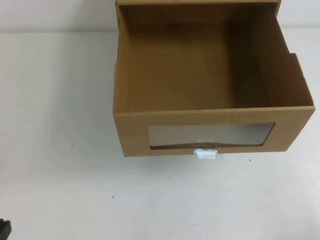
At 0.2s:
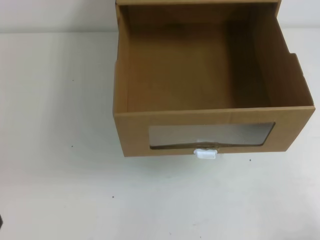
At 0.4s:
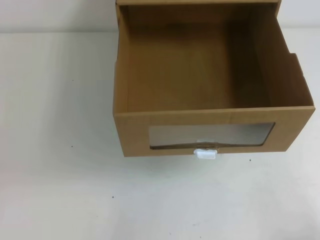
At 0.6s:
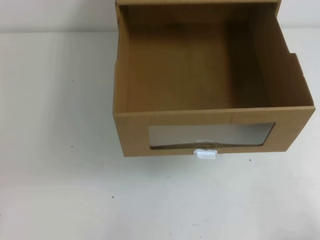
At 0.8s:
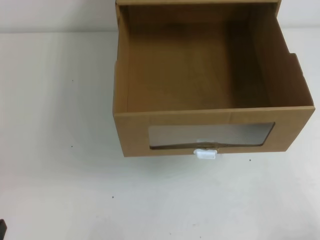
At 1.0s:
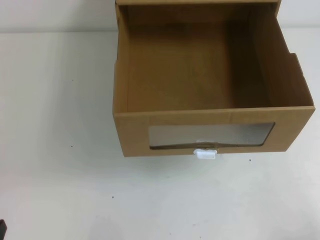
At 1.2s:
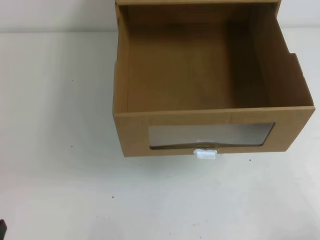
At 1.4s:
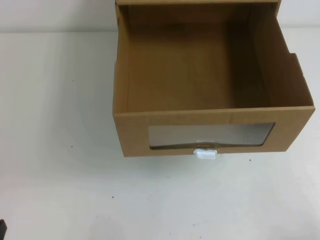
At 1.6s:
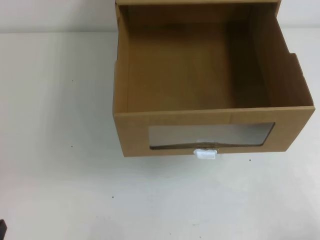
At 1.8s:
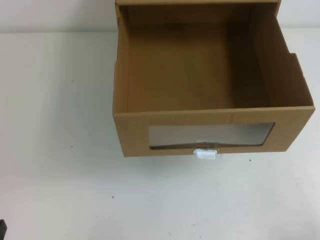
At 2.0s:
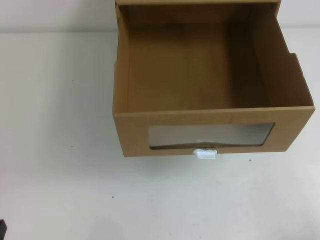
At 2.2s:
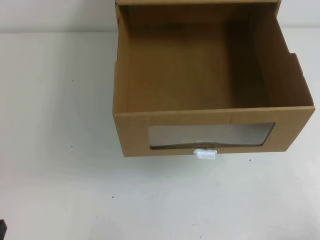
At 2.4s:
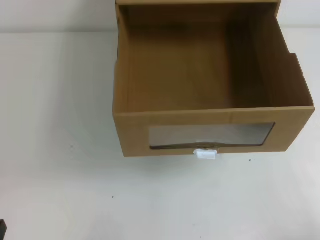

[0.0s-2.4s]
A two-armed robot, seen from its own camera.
Task of the whole recording: open the shoebox on the table.
1.2s to 2.4s: The two grippers keep their place.

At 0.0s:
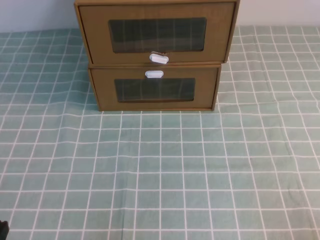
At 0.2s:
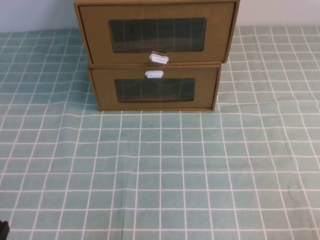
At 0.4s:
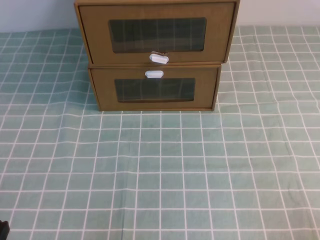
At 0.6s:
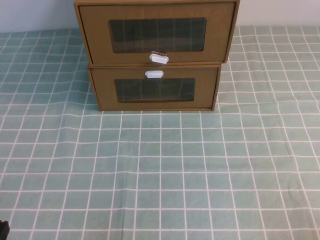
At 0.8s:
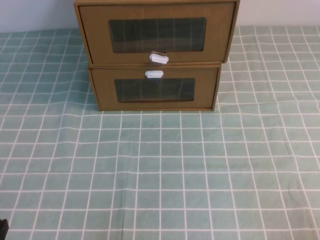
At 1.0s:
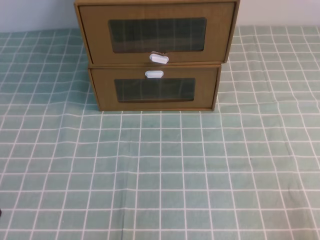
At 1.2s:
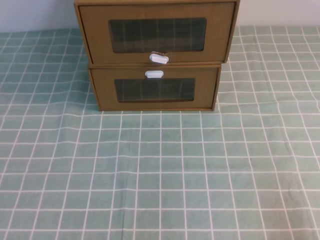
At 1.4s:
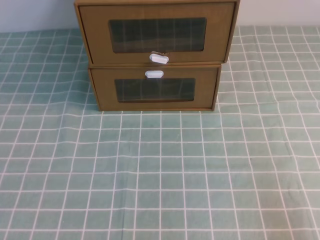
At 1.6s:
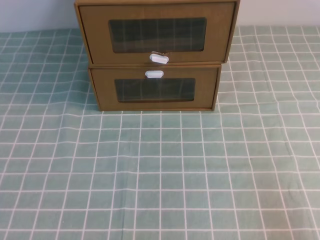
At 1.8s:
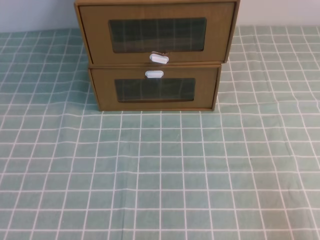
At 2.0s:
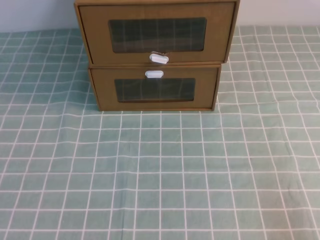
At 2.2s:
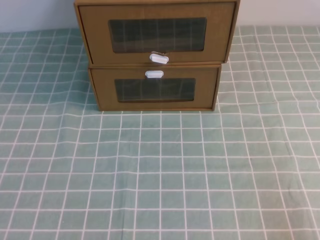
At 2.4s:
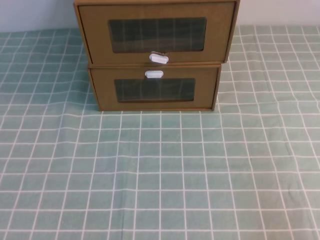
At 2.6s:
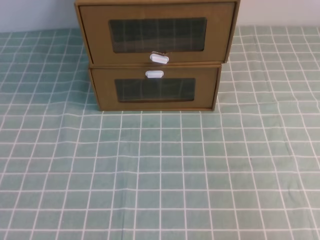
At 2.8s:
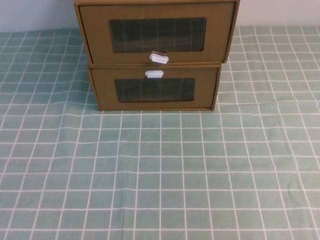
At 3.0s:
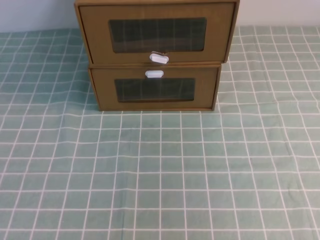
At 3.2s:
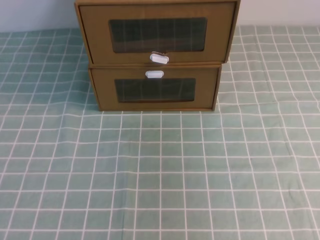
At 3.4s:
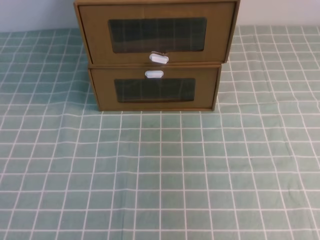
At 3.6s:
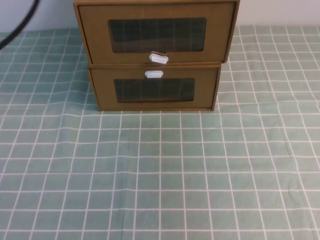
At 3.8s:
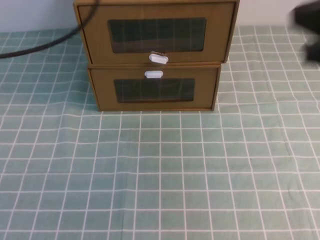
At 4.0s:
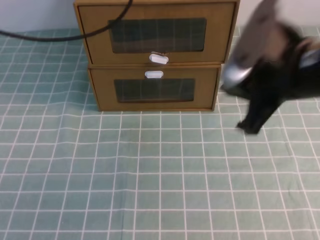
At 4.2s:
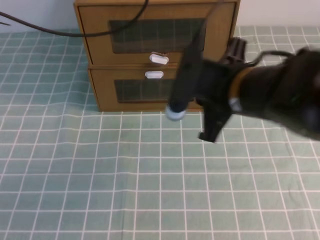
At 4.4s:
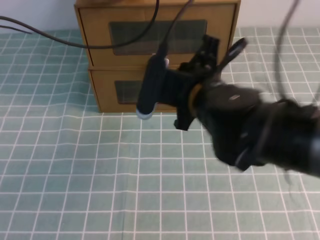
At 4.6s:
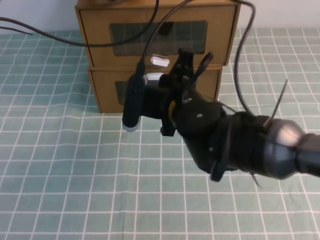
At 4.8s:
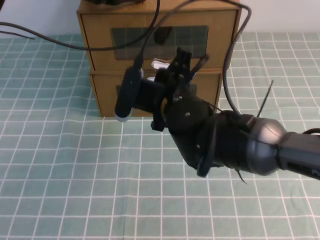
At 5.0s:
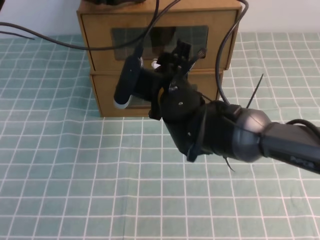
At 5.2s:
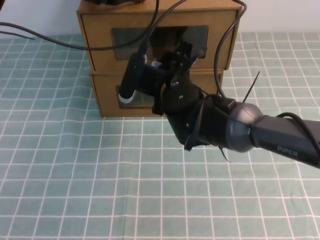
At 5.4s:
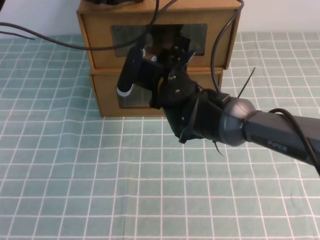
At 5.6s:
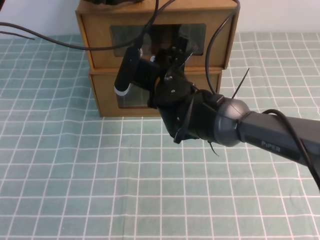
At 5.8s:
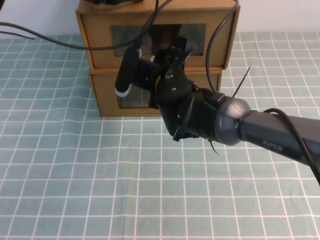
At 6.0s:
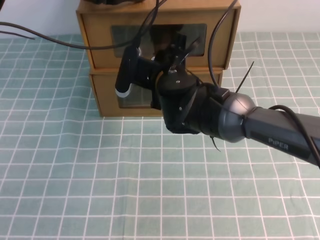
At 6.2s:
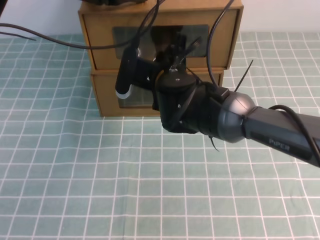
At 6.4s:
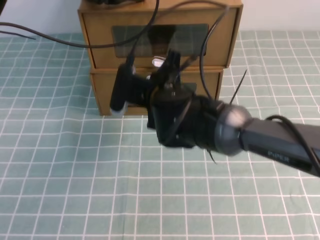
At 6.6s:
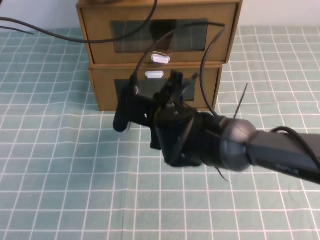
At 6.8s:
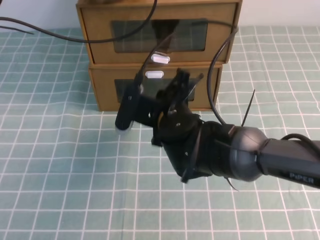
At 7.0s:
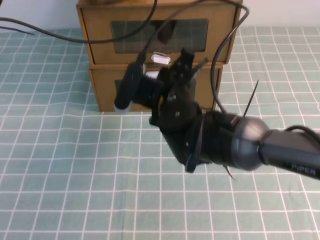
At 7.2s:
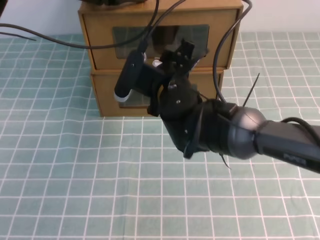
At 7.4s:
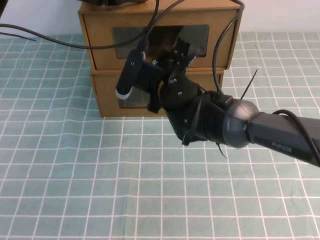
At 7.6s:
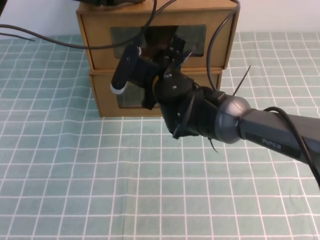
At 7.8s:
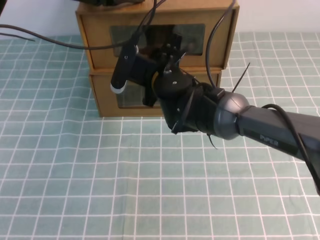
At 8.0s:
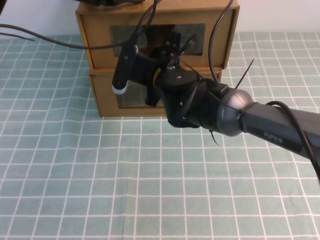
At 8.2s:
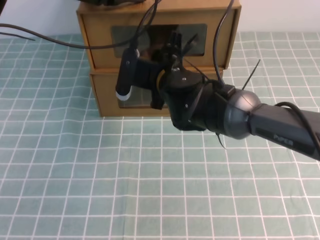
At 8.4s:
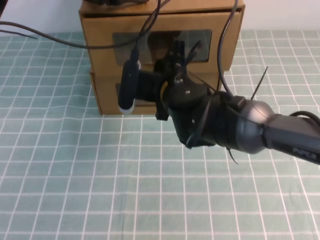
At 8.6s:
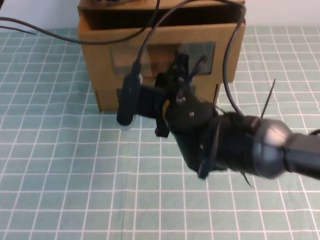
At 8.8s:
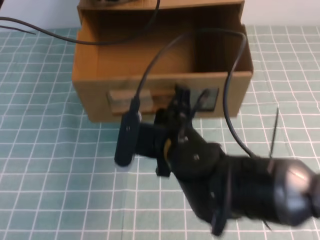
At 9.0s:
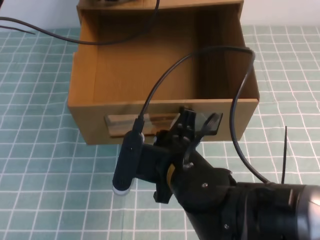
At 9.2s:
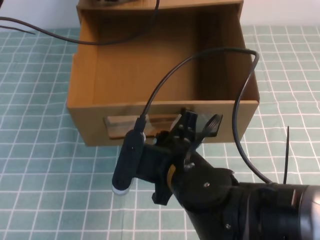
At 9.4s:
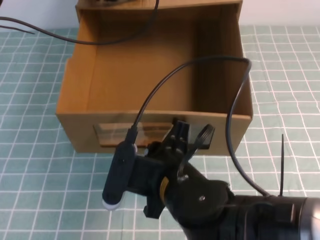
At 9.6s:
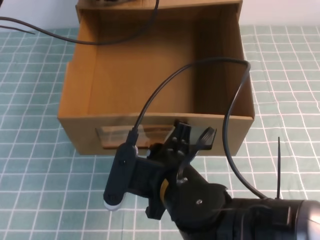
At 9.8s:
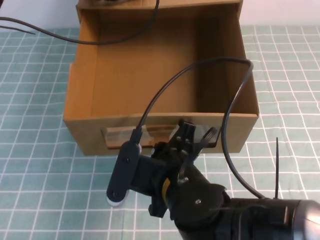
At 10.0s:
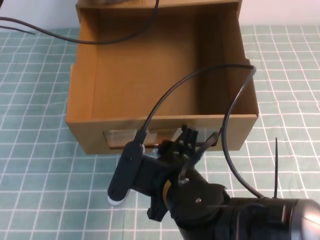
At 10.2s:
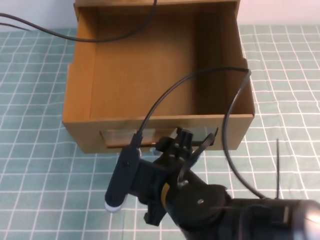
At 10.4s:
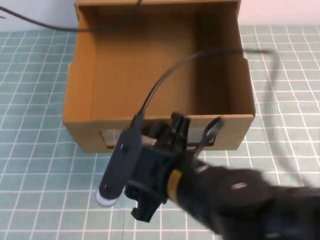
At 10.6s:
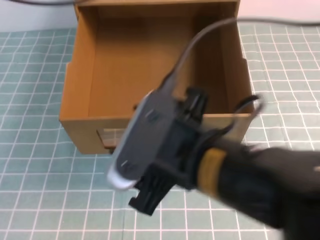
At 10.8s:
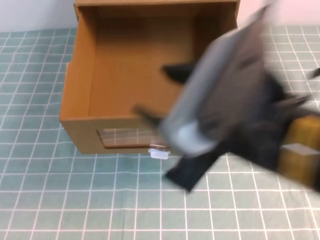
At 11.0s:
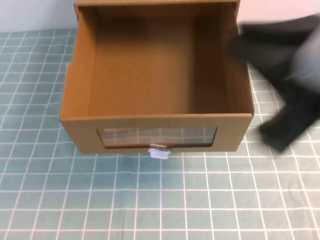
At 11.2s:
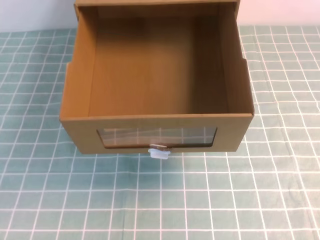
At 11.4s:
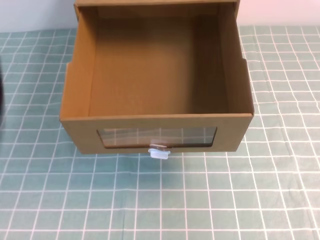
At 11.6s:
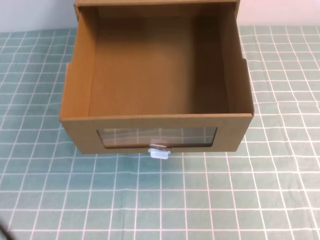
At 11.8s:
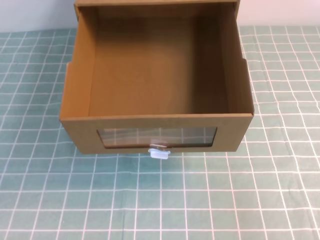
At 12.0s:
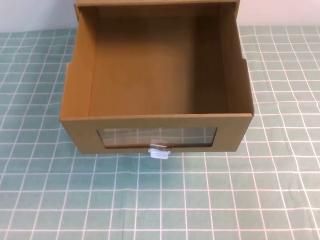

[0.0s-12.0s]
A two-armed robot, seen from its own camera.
Task of the whole recording: open the shoebox on the cyan tablecloth.
1.6s to 3.0s: The right gripper shifts about 25 cm upward.
3.0s to 4.4s: The left gripper moves forward, roughly 40 cm; the right gripper is displaced forward, to the left and downward by approximately 40 cm.
4.4s to 6.0s: The right gripper moves forward and to the left, roughly 10 cm.
7.6s to 9.0s: The right gripper moves backward, approximately 15 cm.
9.0s to 10.4s: The left gripper goes approximately 5 cm upward; the right gripper ends up approximately 5 cm from where it was, and opens its fingers.
10.4s to 12.0s: The left gripper moves backward, some 40 cm, while the right gripper moves to the right, roughly 30 cm, and closes its fingers.

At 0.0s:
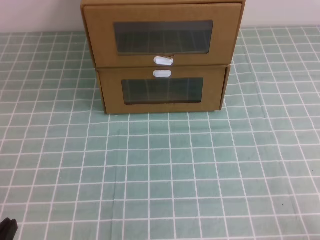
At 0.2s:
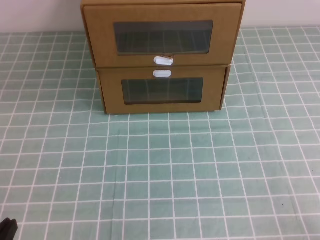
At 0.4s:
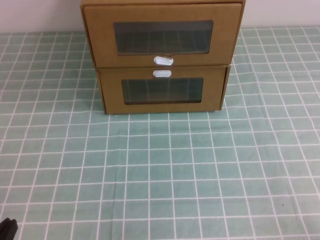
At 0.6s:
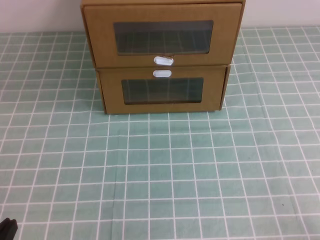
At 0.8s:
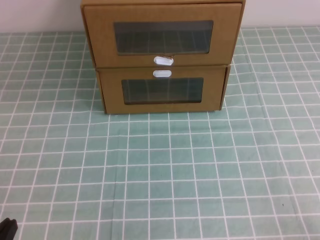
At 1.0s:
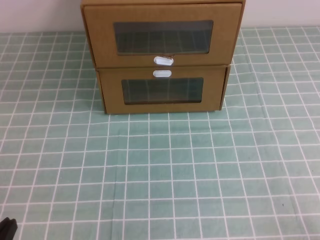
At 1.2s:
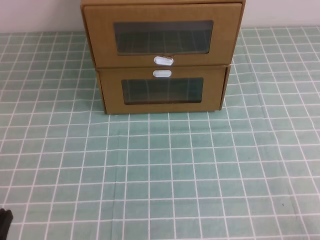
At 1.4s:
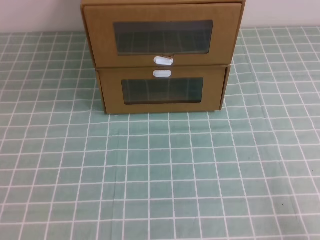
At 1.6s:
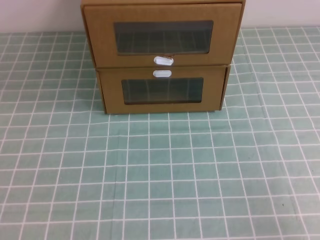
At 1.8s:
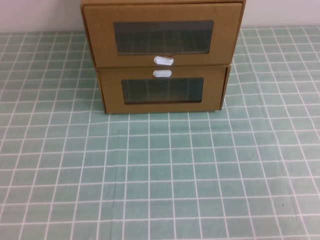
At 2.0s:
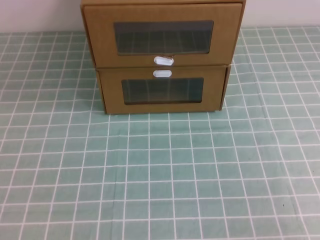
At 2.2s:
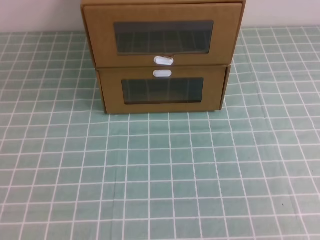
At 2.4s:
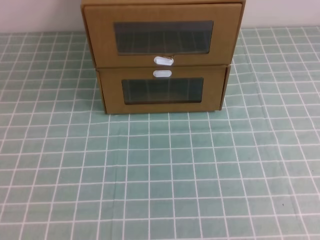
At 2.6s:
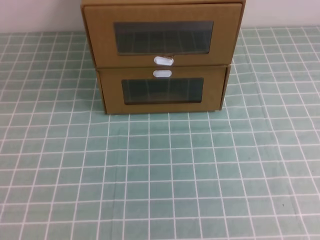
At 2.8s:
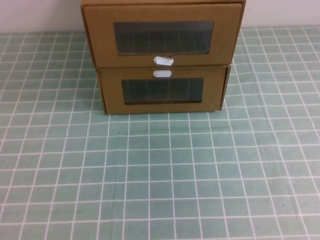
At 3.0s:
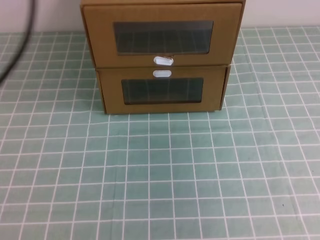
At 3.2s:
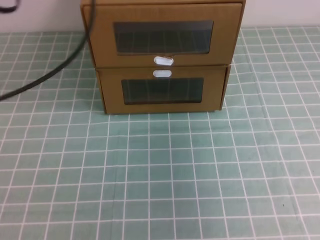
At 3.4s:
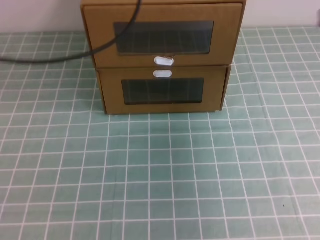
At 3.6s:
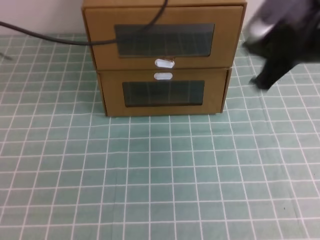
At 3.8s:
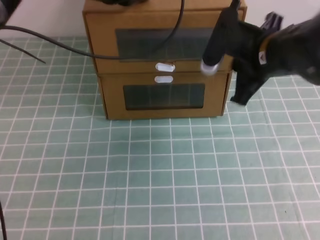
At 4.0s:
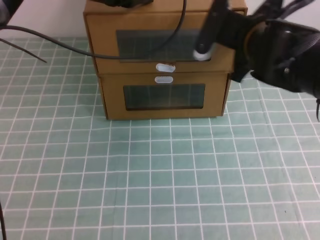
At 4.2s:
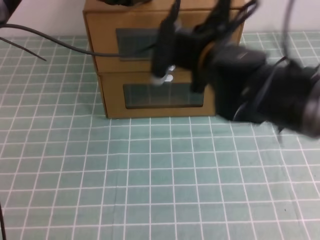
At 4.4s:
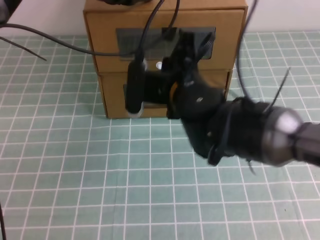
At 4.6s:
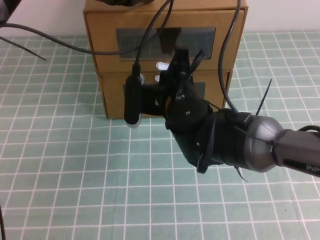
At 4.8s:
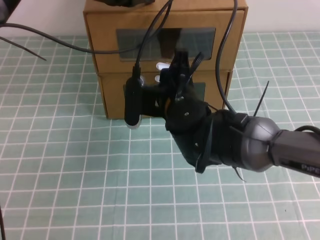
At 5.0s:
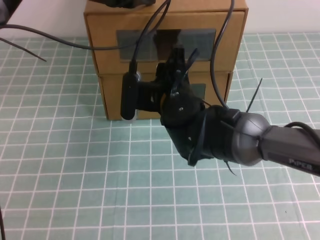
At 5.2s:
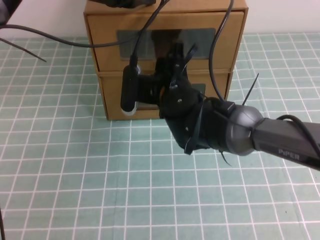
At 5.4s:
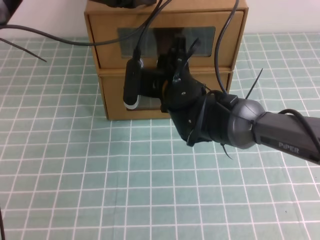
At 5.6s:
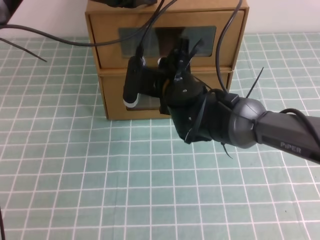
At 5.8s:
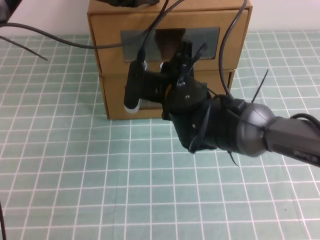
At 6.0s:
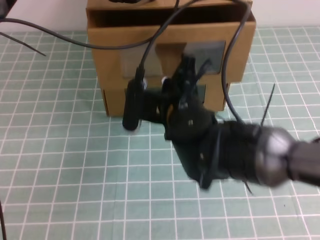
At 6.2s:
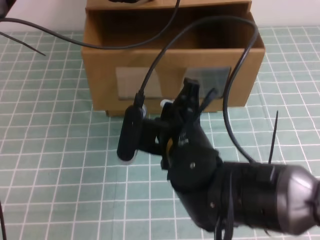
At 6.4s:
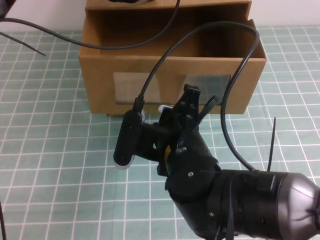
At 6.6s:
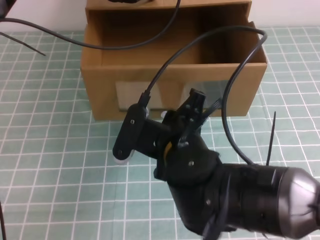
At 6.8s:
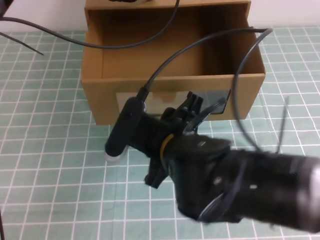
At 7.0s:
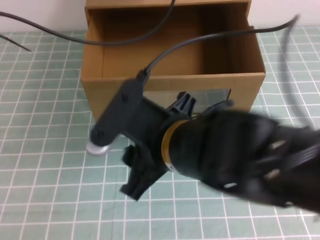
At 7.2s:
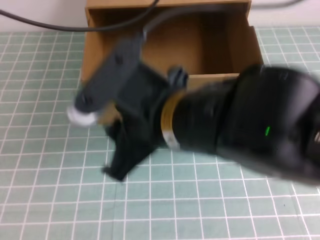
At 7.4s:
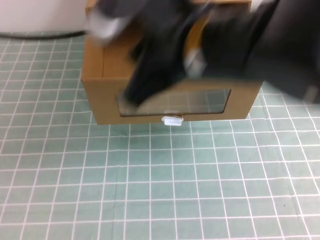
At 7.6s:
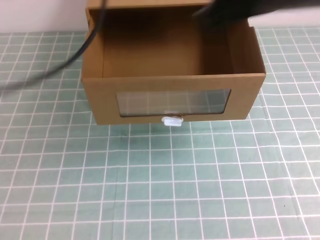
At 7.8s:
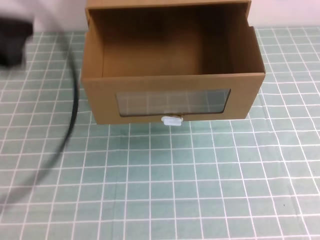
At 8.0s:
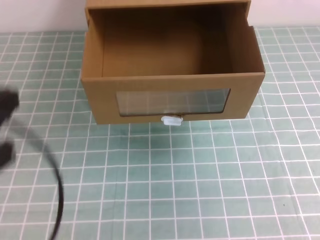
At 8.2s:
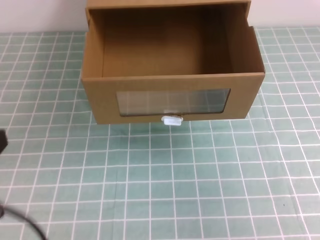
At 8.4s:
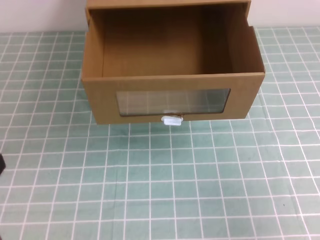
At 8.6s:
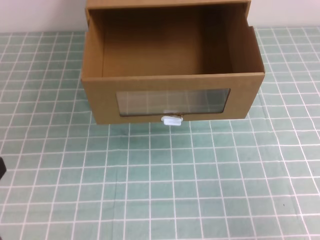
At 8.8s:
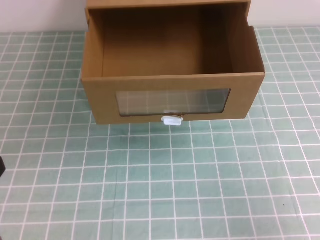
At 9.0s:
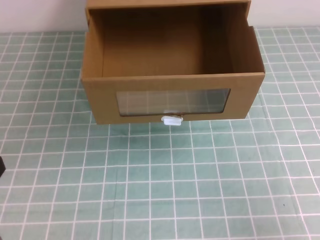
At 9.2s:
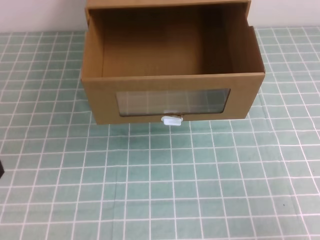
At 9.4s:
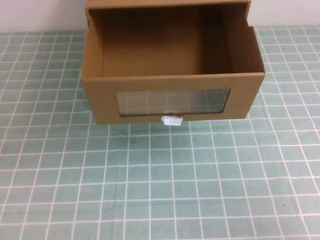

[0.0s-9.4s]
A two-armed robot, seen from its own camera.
Task of the whole recording: open the shoebox on the cyan tablecloth.
1.6s to 3.2s: The grippers both shift upward and forward by approximately 30 cm.
3.2s to 4.8s: The left gripper is displaced forward, to the right and downward by approximately 20 cm; the right gripper goes about 35 cm to the left, downward and forward, and opens.
4.8s to 6.2s: The right gripper goes roughly 5 cm backward, and closes its fingers.
6.2s to 7.8s: The left gripper heads backward and to the left, covering some 25 cm, while the right gripper travels upward and to the right by about 25 cm, and opens and closes again.
7.8s to 9.4s: The two grippers go about 25 cm downward and backward.
